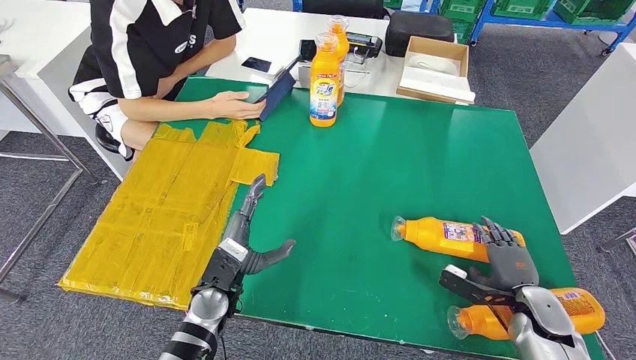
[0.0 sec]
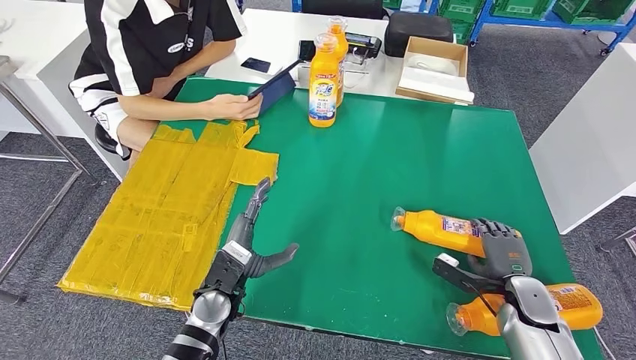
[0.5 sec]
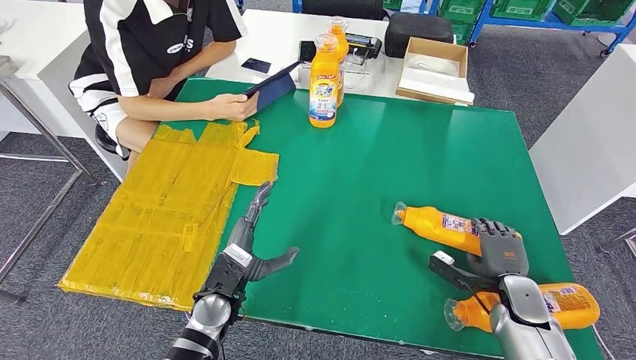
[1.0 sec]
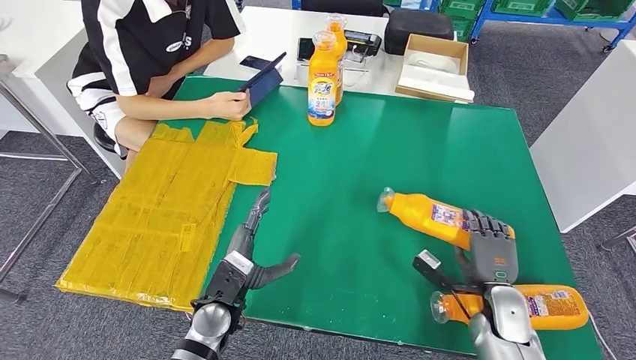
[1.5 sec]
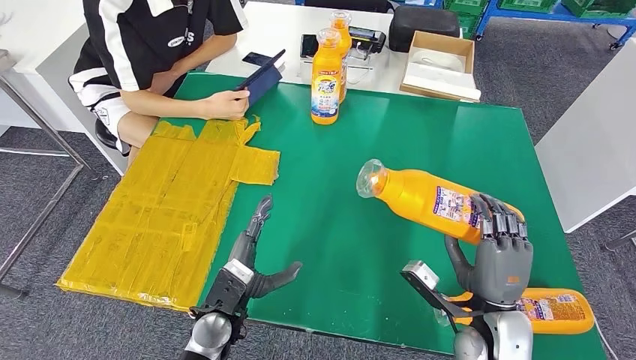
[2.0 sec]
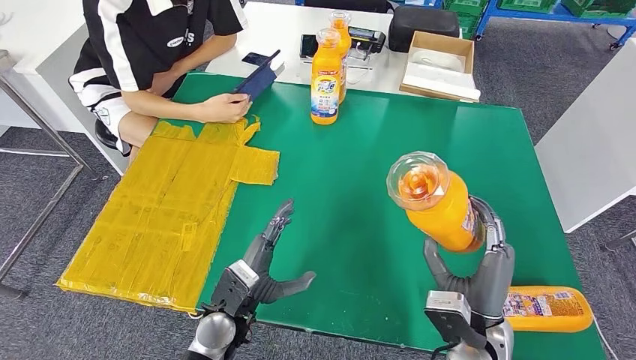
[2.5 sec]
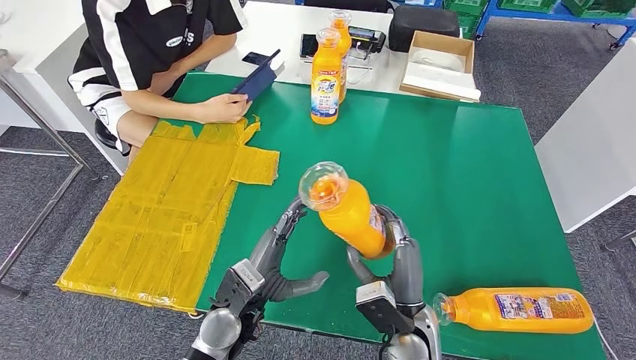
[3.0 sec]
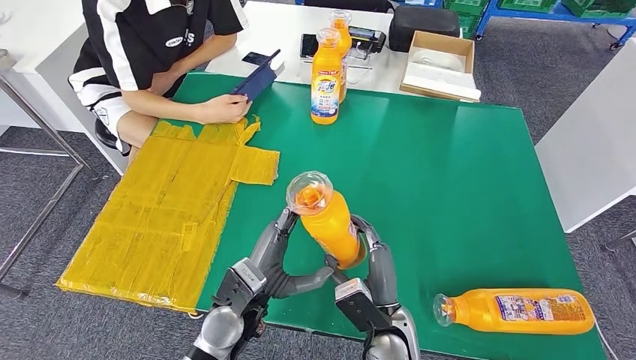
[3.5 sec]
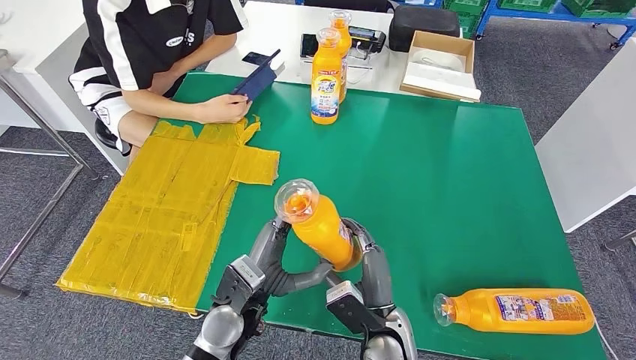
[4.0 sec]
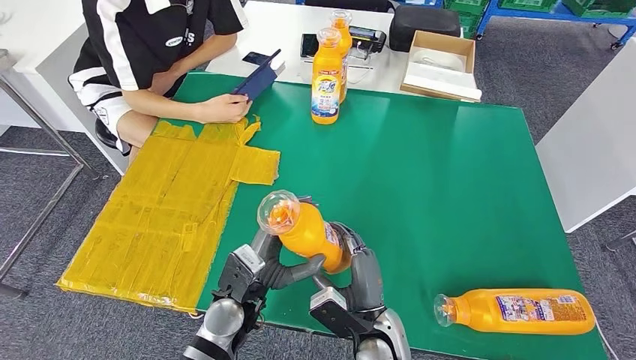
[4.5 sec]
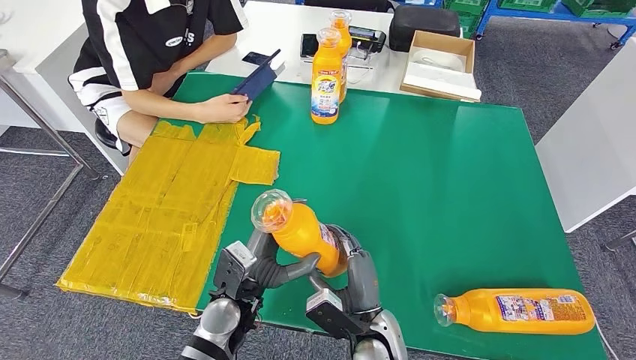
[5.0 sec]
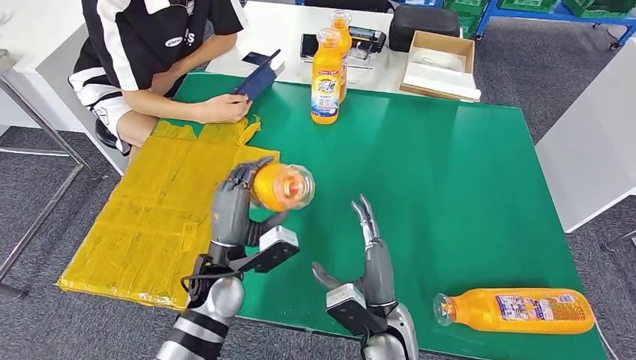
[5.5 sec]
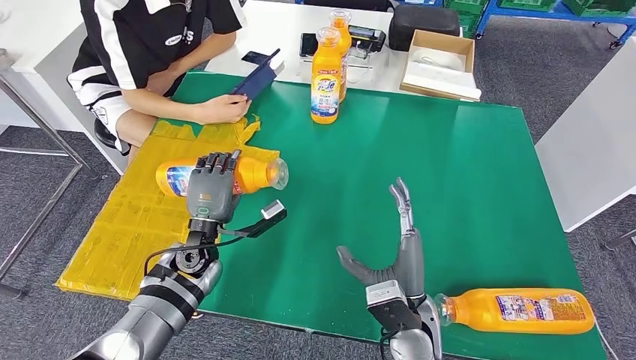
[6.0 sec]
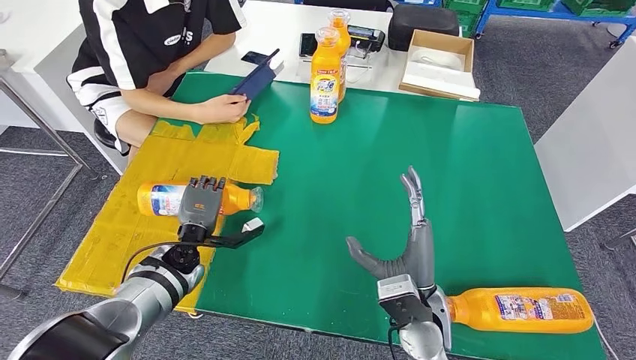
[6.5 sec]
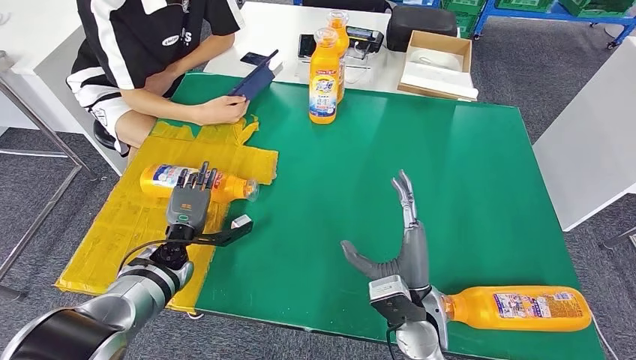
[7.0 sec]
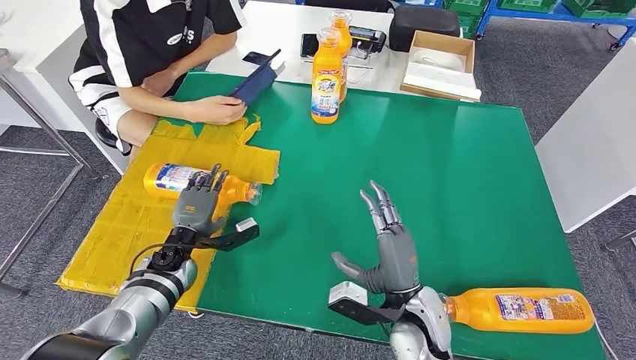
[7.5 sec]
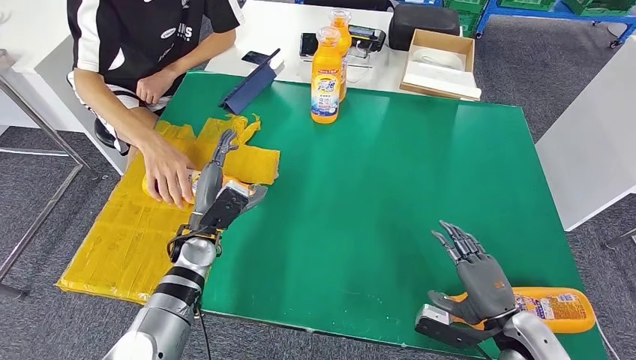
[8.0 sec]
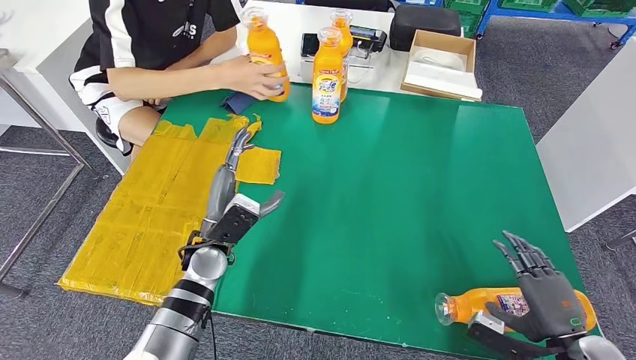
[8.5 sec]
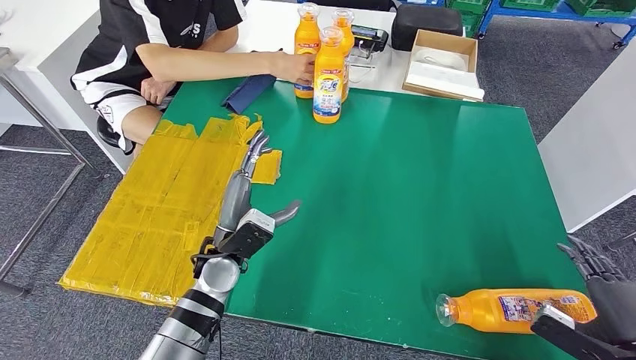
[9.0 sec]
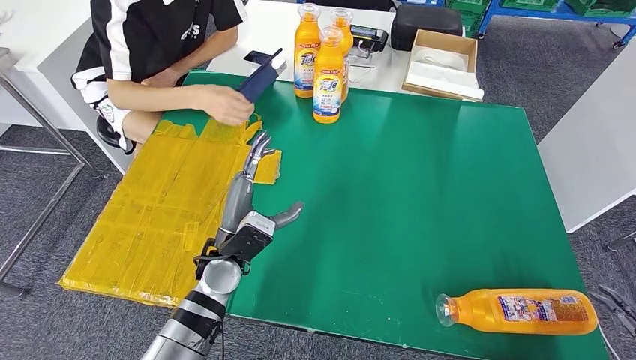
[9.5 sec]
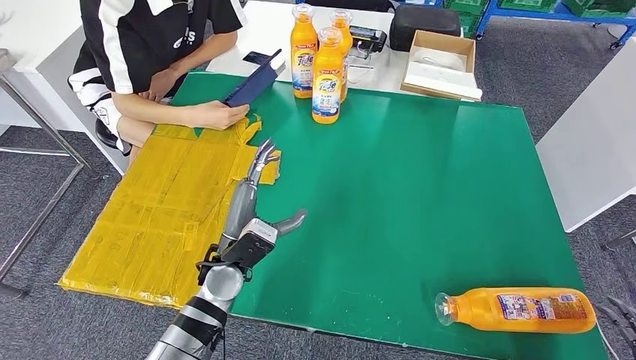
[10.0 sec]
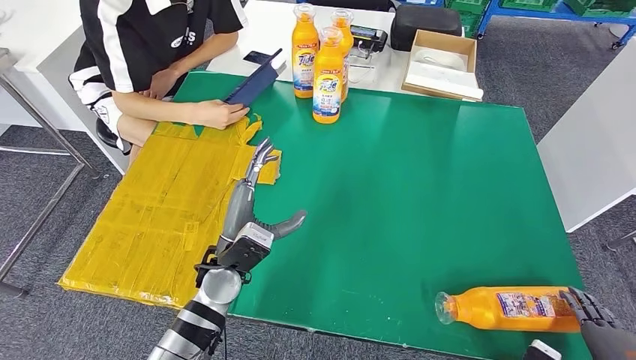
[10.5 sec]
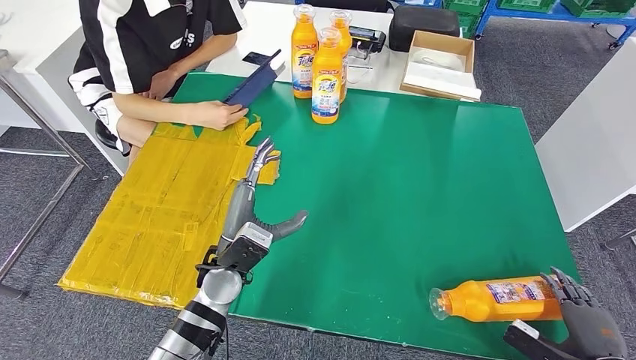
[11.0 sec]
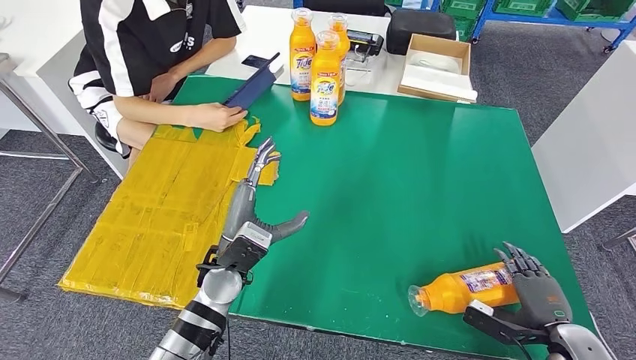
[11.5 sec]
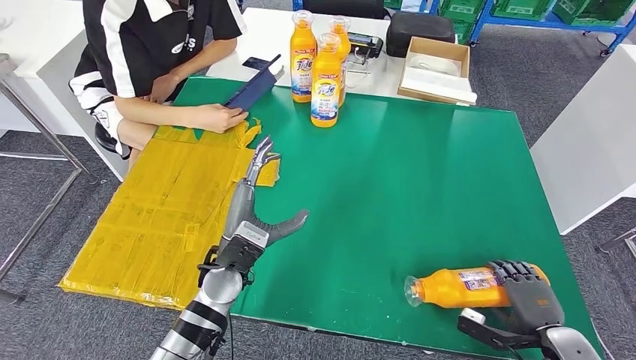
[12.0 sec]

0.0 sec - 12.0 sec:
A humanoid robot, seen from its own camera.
Step, 0.0 sec - 2.5 sec: Pick up the bottle from the table.
Step, 3.0 sec - 7.0 sec: Flip the bottle to face forward.
2.0 sec - 4.0 sec: The left hand shifts by about 5 cm. The right hand heads to the left, covering about 15 cm.
4.0 sec - 6.0 sec: The right hand moves roughly 5 cm. The left hand heads forward and to the left, covering about 15 cm.
6.0 sec - 8.0 sec: The right hand moves to the right, about 20 cm. The left hand travels to the left and back again, roughly 10 cm each way.

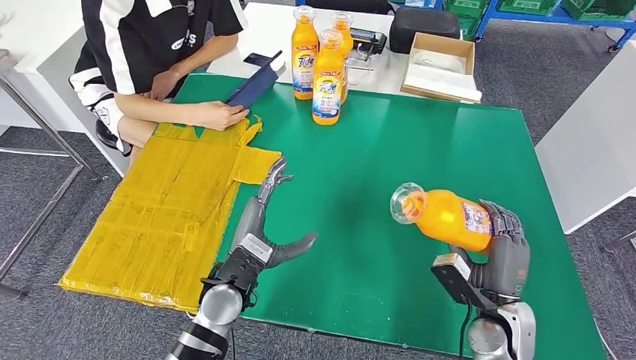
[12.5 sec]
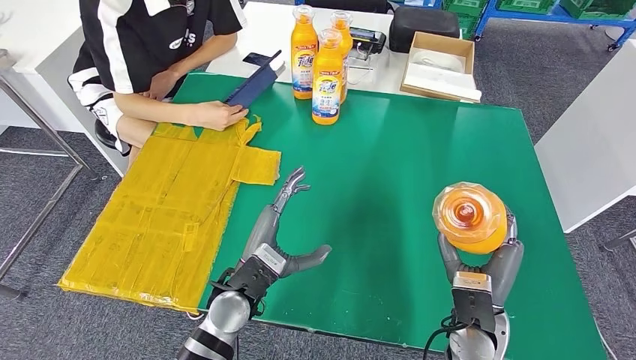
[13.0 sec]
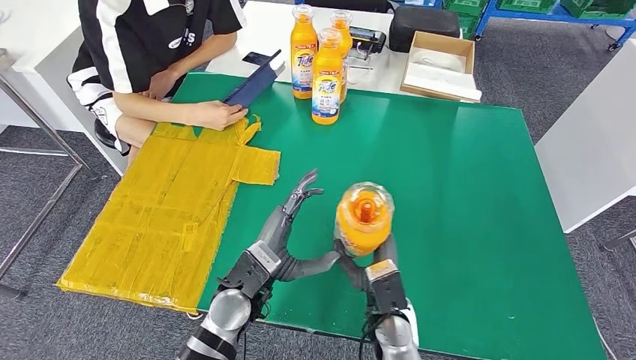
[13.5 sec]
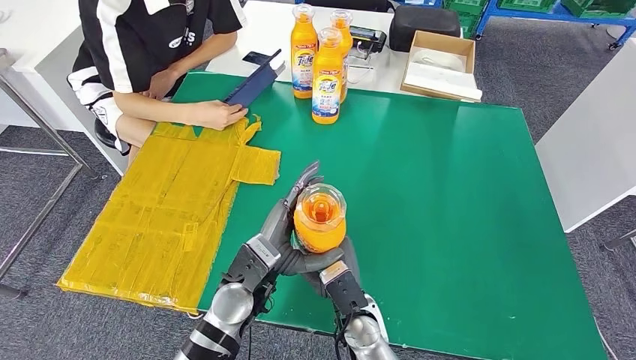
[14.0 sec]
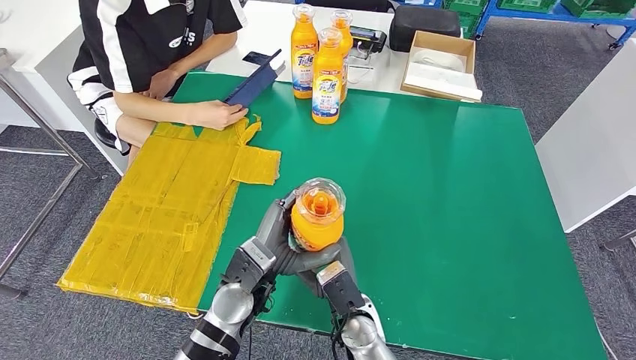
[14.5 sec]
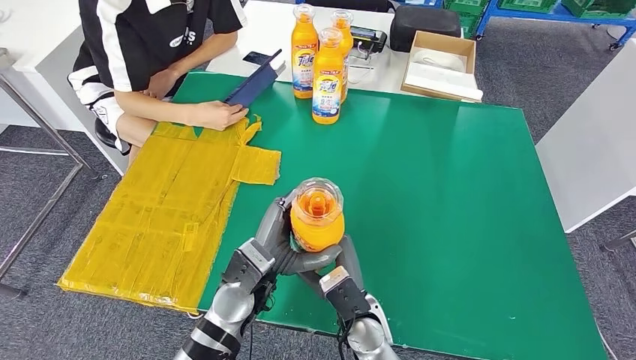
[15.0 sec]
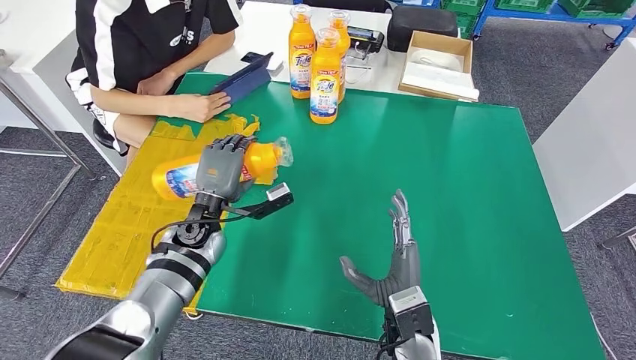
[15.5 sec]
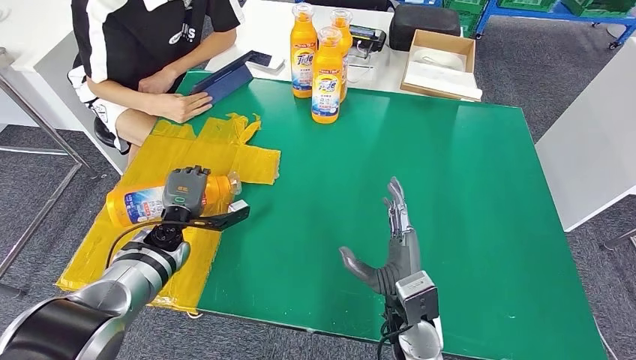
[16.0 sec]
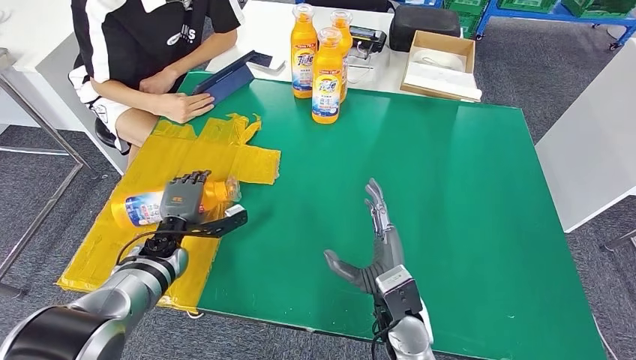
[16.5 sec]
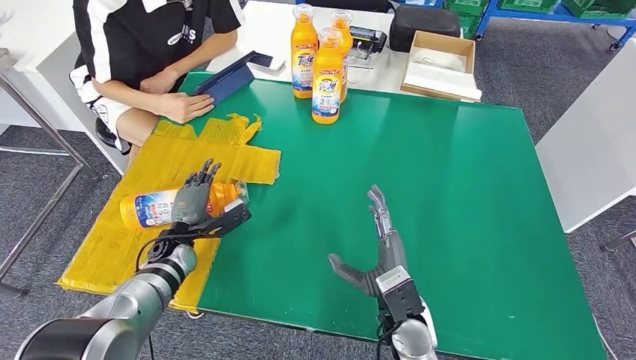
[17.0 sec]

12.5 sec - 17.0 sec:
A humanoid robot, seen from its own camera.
Step, 13.5 sec - 17.0 sec: Flip the bottle to face forward.
12.5 sec - 14.5 sec: The right hand shifts roughly 25 cm to the left.
